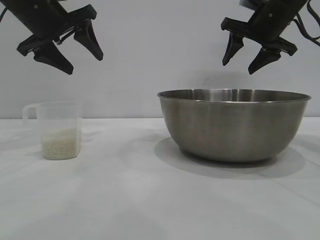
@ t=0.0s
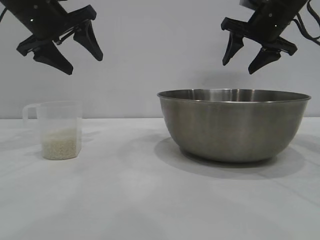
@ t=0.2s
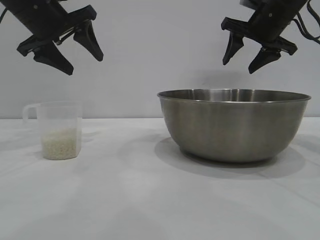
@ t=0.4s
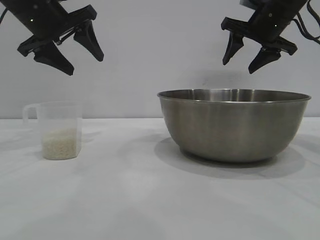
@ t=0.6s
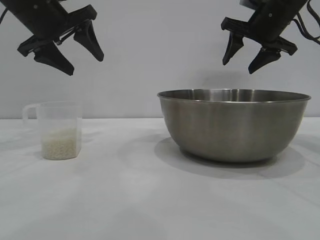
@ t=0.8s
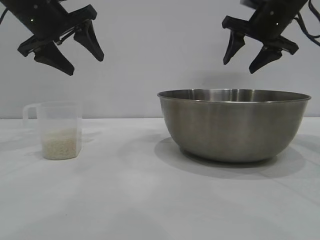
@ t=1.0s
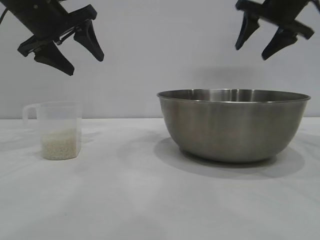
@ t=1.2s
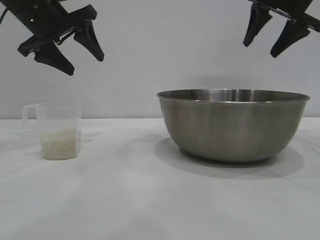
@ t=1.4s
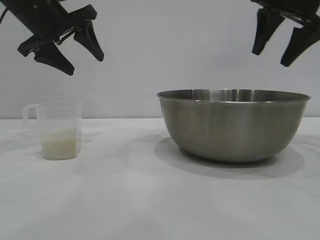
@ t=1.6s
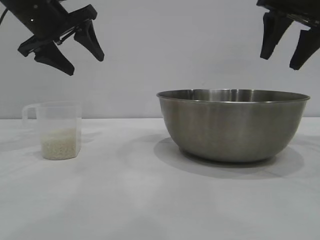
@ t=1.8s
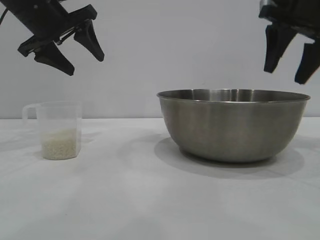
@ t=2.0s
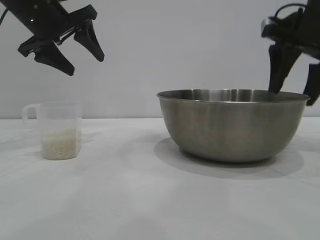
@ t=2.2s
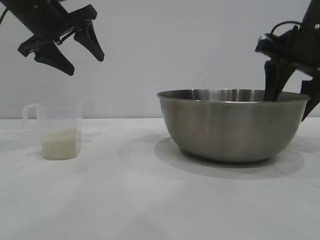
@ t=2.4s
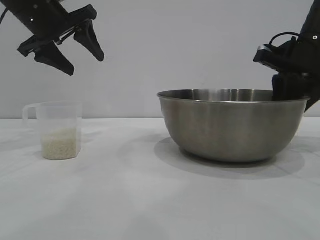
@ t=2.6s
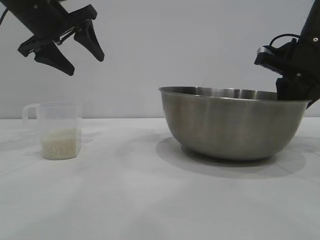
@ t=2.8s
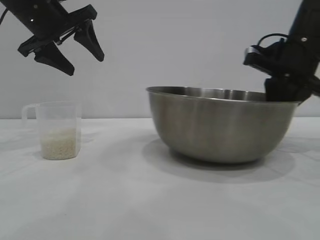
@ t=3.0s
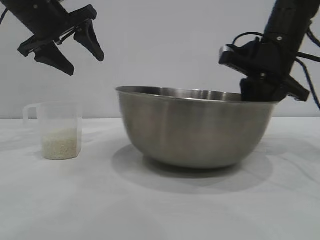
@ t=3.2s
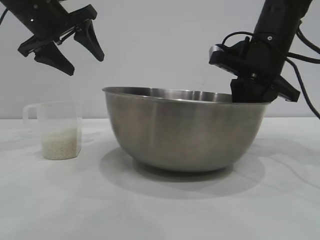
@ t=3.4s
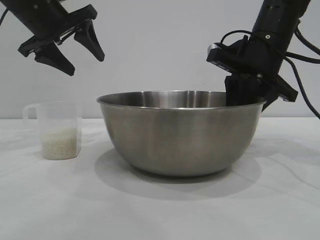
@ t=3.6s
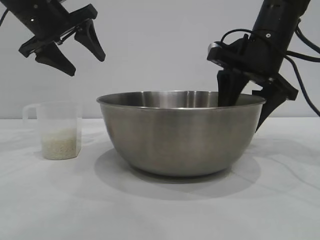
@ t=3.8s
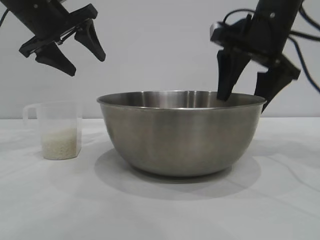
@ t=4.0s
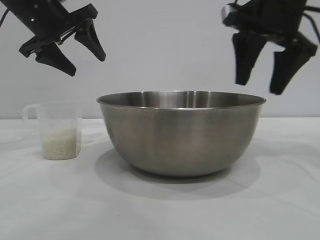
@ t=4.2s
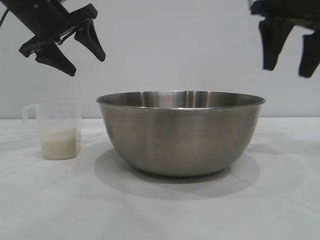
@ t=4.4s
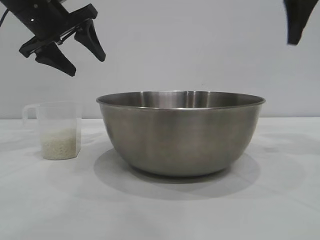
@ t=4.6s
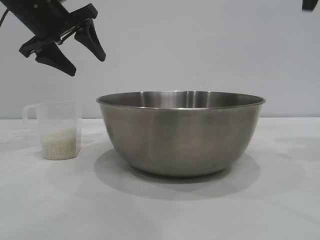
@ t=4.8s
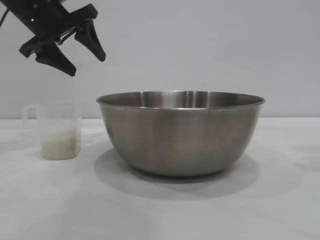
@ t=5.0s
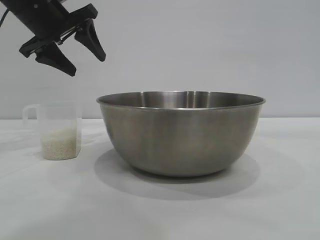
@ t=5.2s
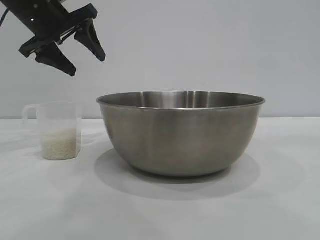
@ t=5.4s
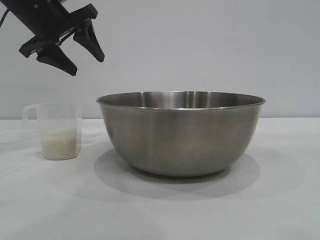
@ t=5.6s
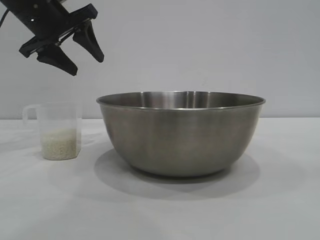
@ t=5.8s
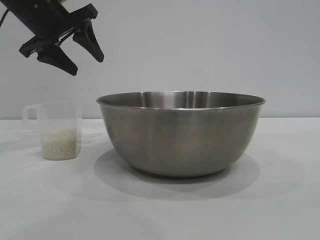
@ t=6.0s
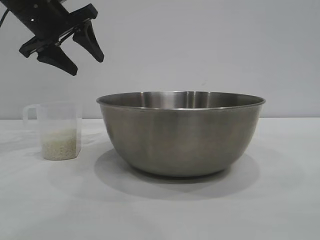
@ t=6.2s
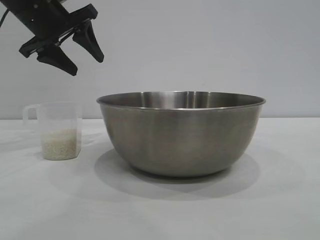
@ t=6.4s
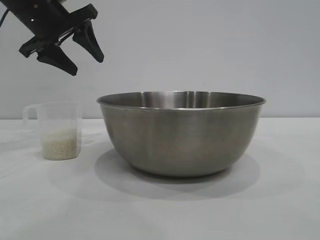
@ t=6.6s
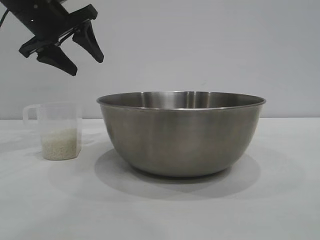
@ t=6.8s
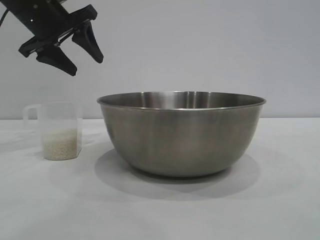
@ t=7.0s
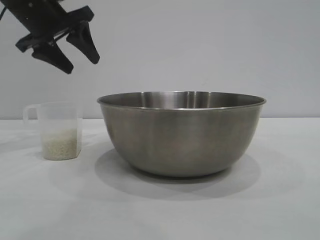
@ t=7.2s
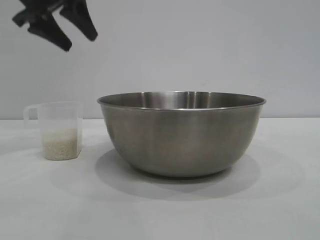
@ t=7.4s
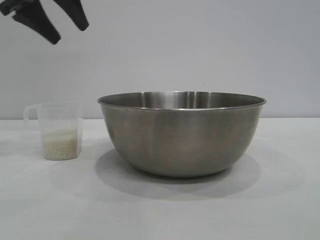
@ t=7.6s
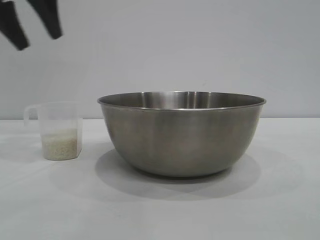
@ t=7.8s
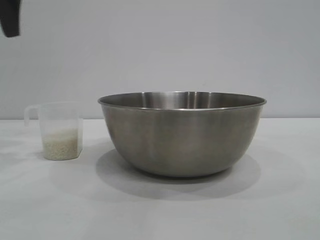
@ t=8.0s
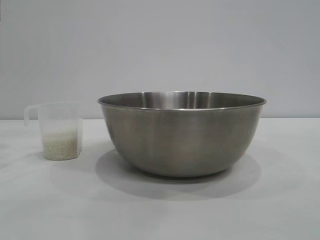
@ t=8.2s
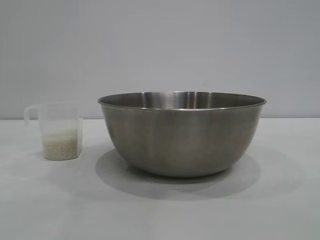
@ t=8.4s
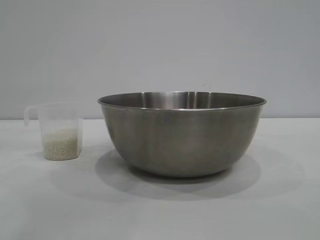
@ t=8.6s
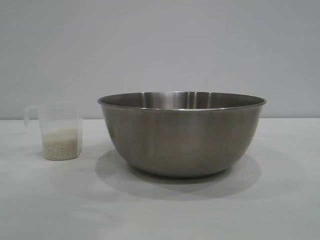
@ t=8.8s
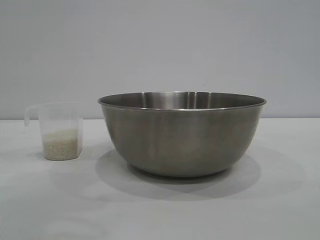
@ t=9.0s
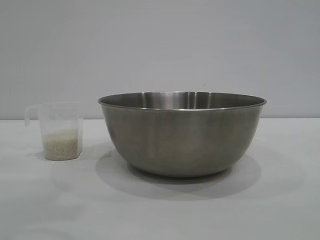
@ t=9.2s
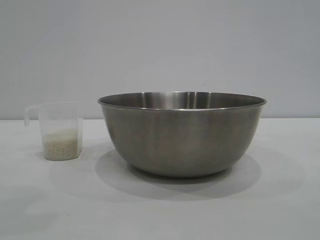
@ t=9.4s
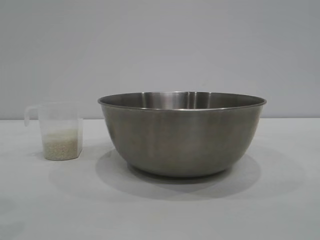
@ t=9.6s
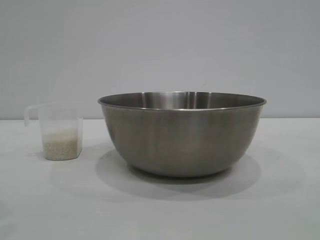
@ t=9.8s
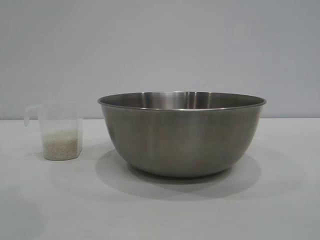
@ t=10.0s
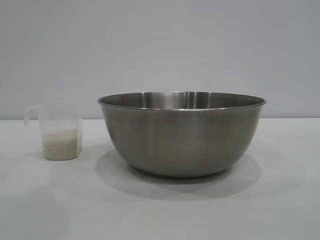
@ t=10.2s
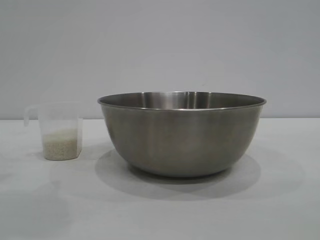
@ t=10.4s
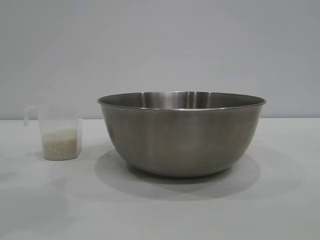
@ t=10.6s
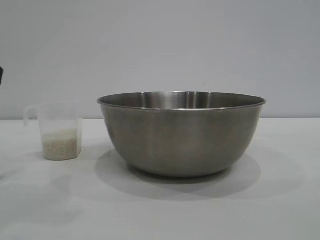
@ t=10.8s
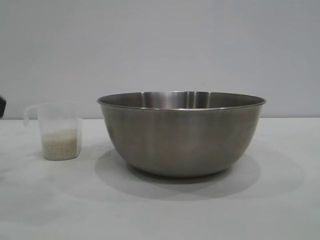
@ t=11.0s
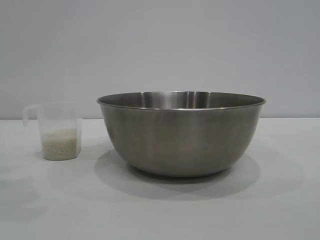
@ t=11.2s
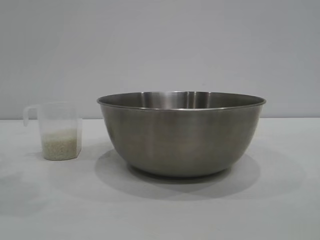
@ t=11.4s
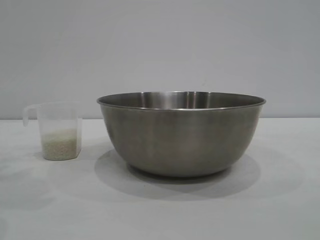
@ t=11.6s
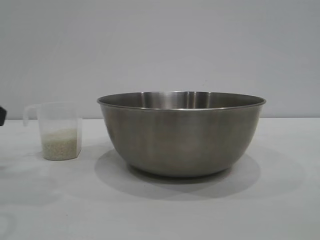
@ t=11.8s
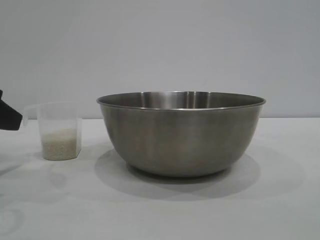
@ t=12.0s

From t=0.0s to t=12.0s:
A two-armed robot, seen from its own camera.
Task of the whole recording: the right gripper grasp the rice container and place it in the center of the table, the left gripper grasp the rice scoop and pour the rice into the rice container.
Step, from t=0.0s to t=4.0s: Move the bowl to the center of view with the right gripper.

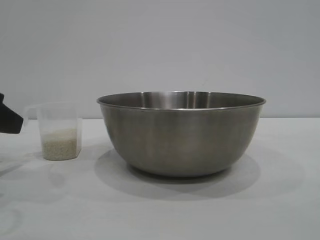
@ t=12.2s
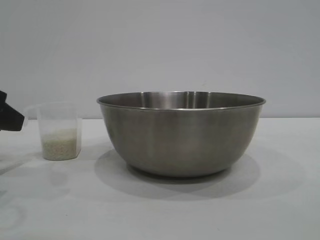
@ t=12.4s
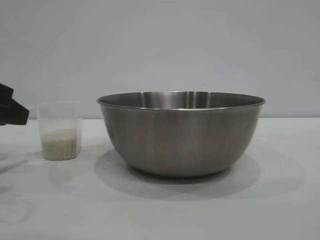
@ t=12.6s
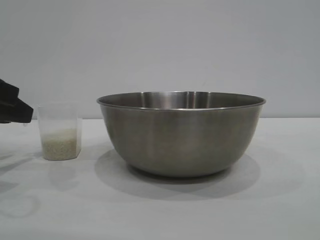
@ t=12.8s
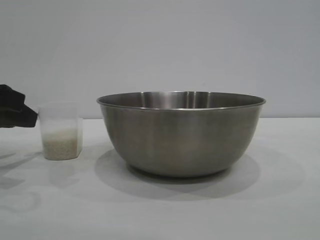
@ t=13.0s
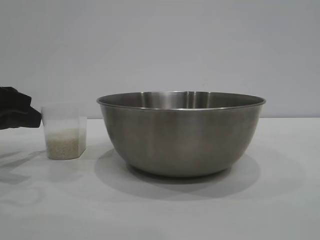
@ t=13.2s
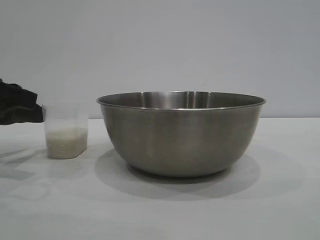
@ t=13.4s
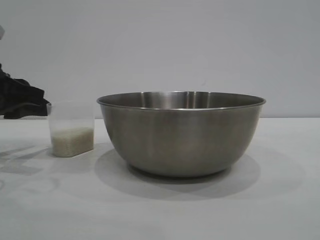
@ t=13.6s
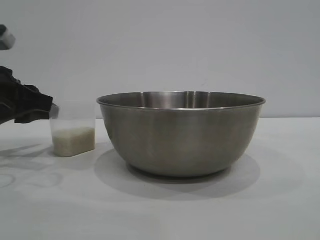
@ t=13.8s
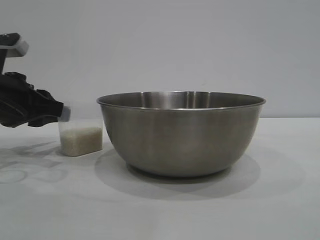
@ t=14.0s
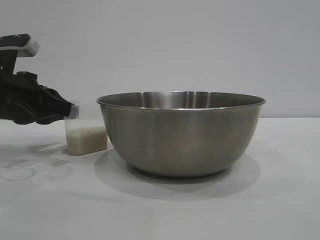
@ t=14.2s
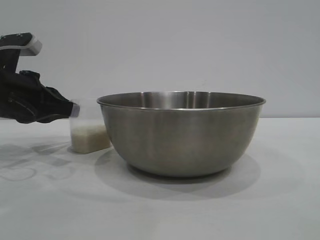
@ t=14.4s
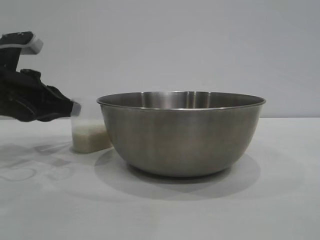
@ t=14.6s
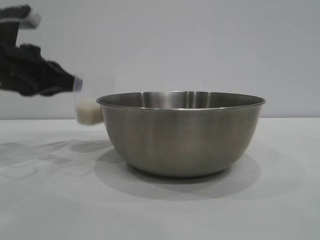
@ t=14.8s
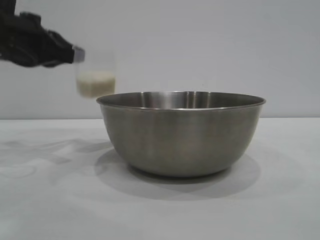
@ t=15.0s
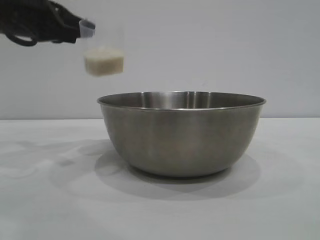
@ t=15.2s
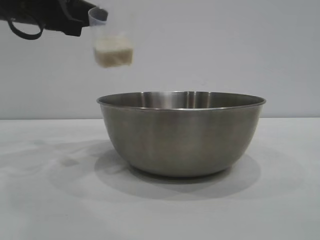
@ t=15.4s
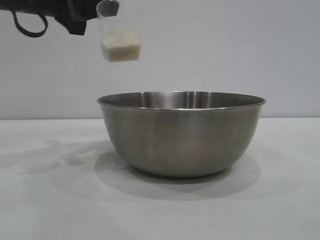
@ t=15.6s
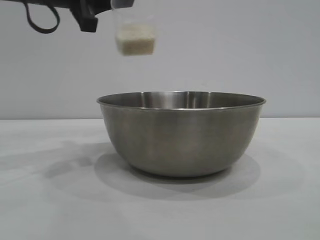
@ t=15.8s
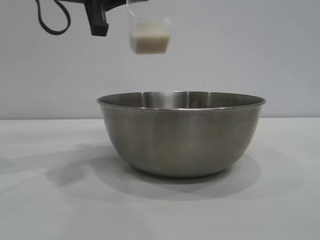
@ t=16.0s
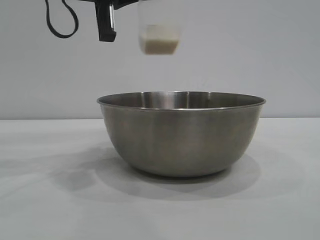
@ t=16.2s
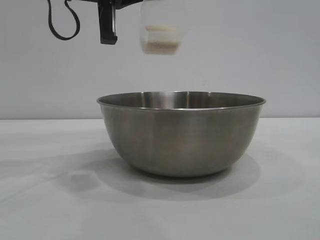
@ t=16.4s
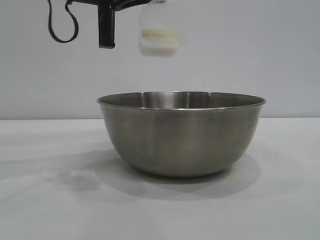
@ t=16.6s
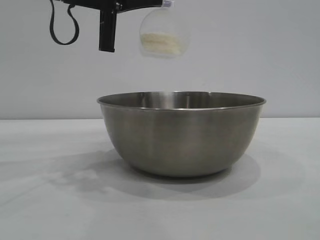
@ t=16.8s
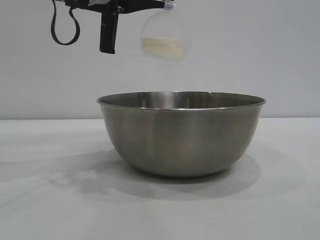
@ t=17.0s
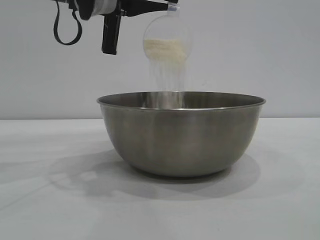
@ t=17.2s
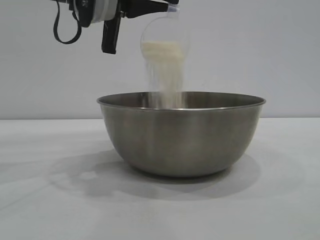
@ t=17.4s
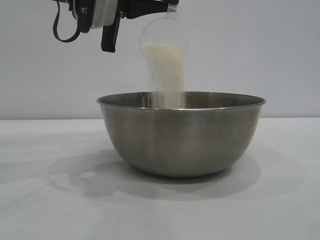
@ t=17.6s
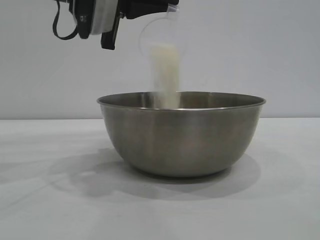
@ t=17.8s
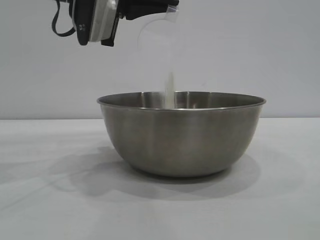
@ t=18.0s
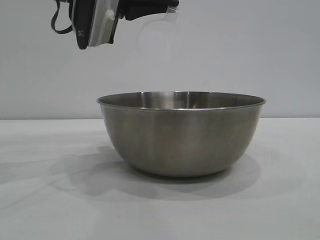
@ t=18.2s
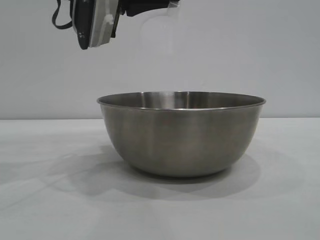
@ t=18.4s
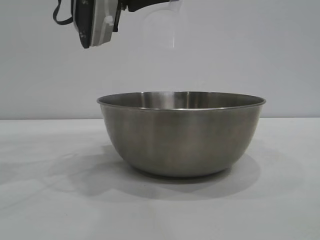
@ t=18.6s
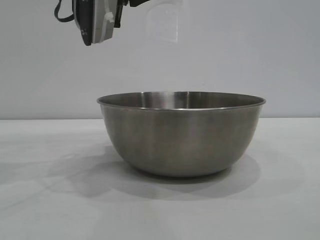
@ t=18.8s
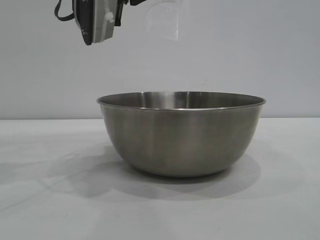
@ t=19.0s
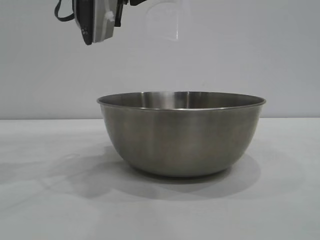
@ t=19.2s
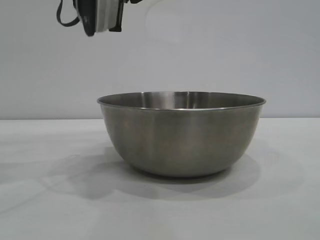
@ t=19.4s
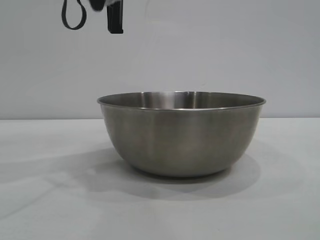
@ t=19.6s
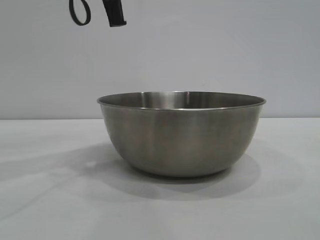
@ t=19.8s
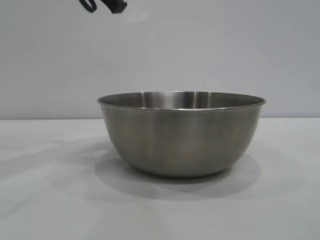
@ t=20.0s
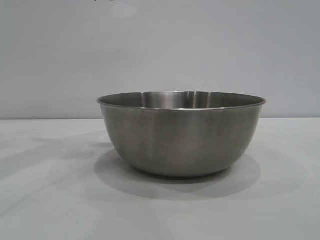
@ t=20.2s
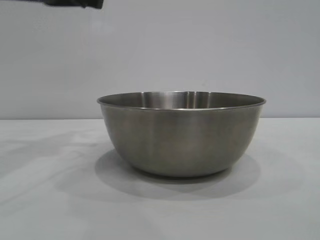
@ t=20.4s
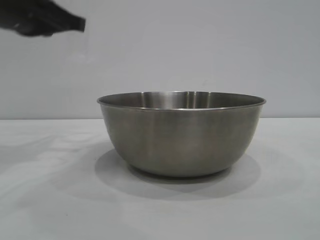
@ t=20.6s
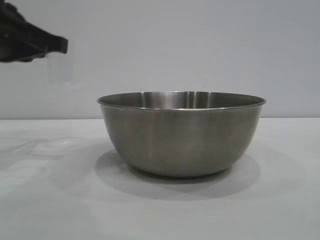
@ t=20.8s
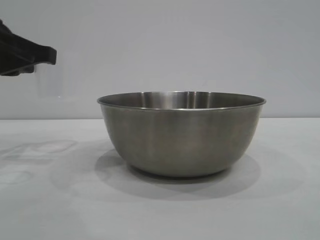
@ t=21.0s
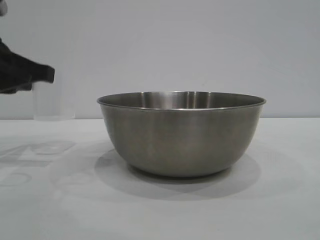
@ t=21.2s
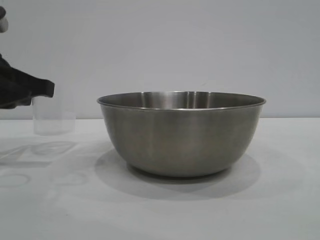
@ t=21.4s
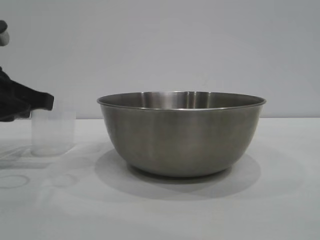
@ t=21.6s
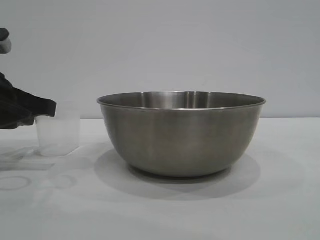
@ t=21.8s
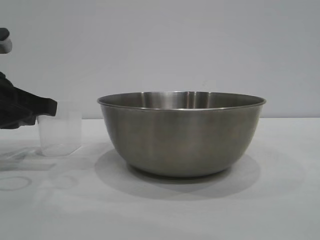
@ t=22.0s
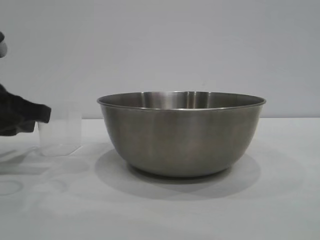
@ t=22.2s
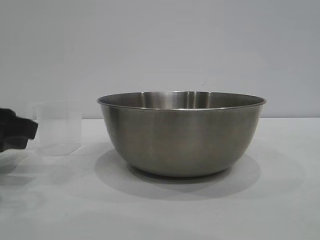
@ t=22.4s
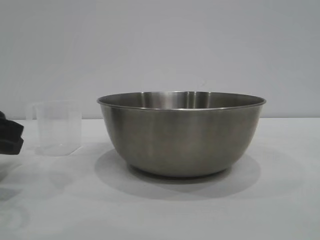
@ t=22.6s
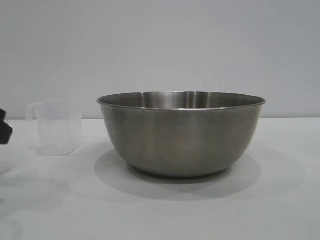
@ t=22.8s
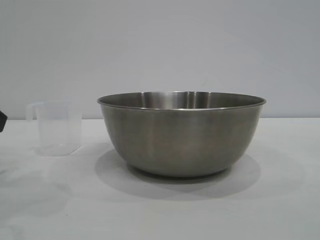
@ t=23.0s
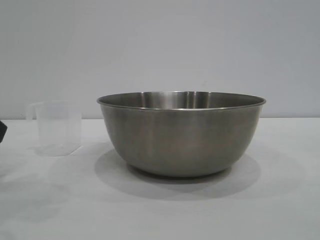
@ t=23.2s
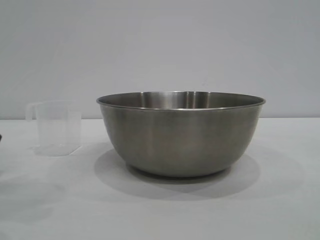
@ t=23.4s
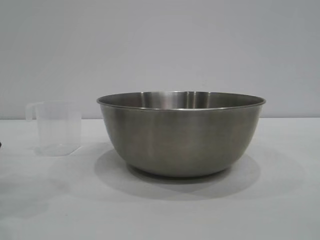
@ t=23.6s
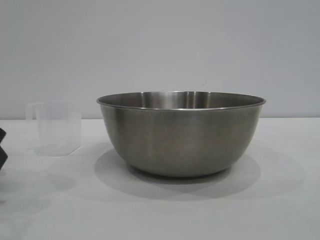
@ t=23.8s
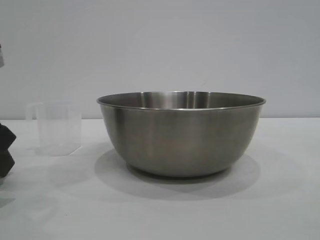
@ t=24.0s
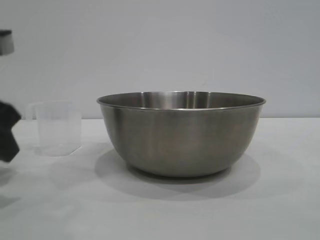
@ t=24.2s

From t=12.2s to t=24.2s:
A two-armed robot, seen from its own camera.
Task of the whole recording: the right gripper grasp the rice container and place it in the center of the table, the left gripper grasp the rice scoop and pour the rice into the rice container.
Step, from t=12.2s to t=14.6s: Pick up the cup with rice in it with the left gripper.
Step, from t=14.8s to t=18.2s: Pour the rice from the cup into the bowl with the left gripper.
Step, from t=18.6s to t=22.6s: Place the cup on the table with the left gripper.
